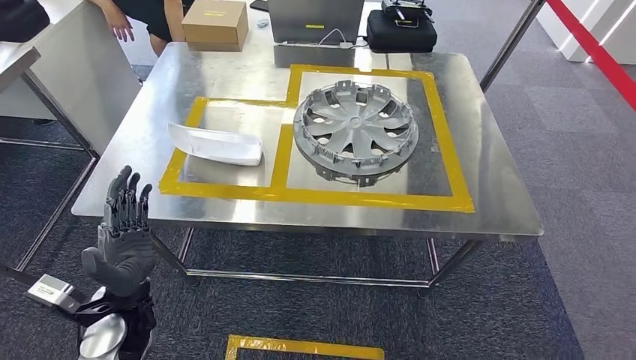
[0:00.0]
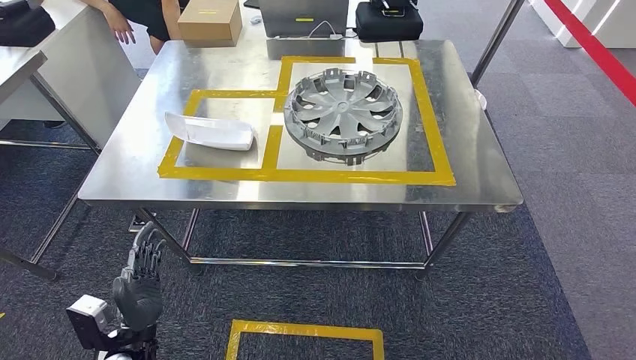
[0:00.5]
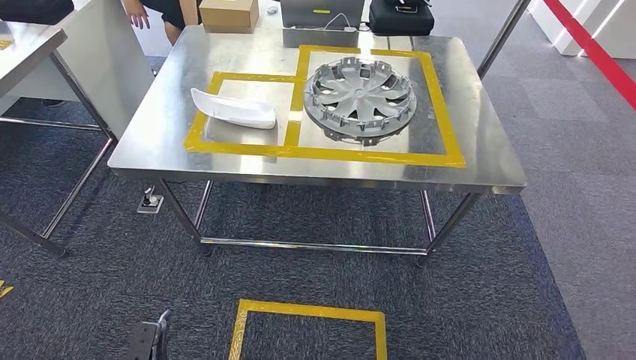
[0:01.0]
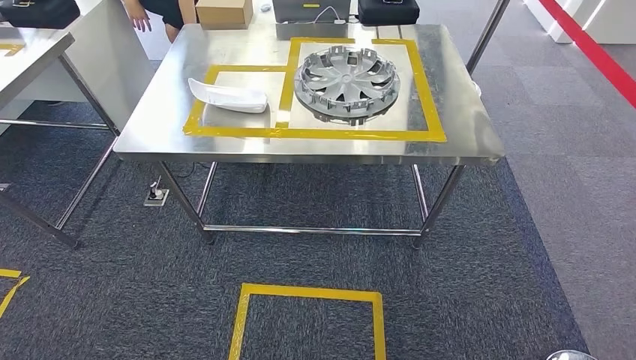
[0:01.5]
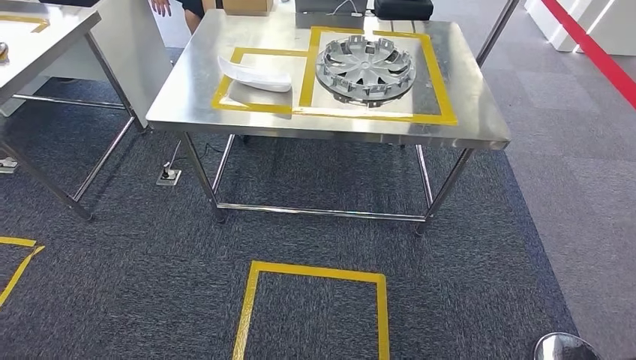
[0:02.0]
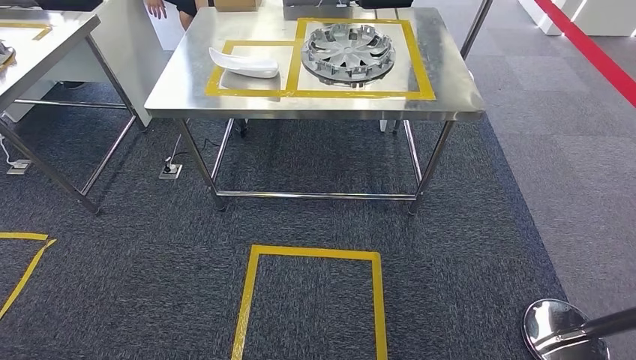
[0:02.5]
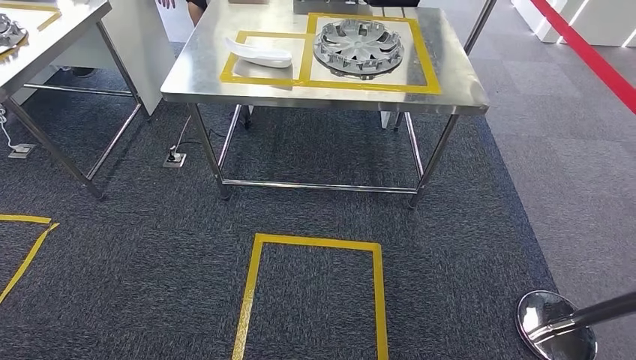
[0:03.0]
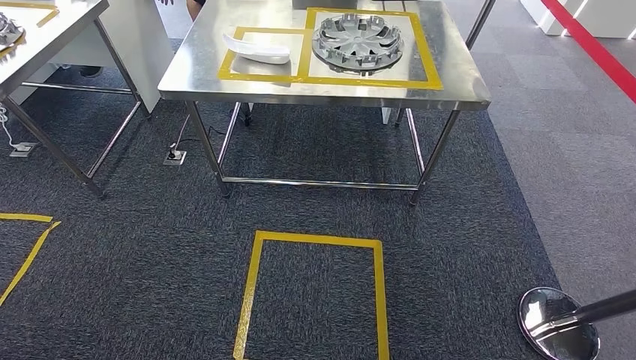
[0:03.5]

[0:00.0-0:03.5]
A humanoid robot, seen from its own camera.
Step, 0:00.0 to 0:03.5: Return to the initial position at the workbench.
